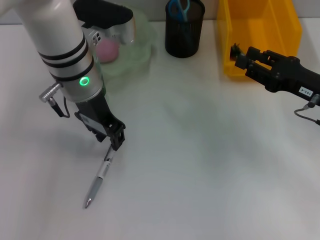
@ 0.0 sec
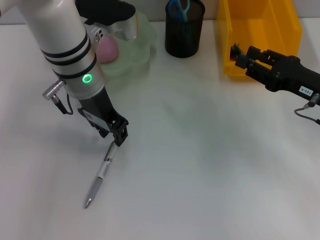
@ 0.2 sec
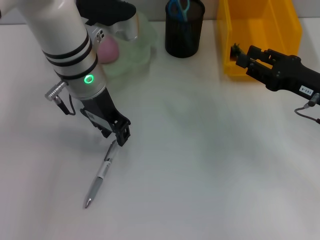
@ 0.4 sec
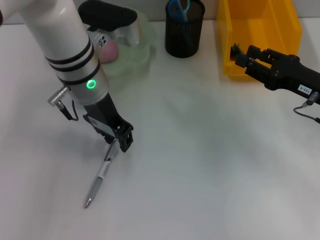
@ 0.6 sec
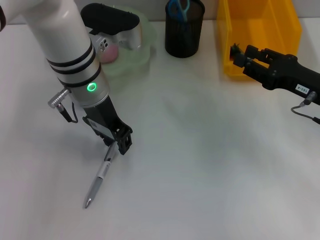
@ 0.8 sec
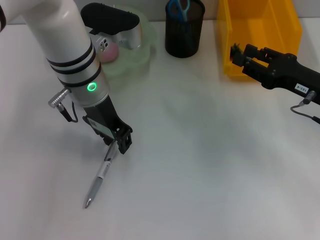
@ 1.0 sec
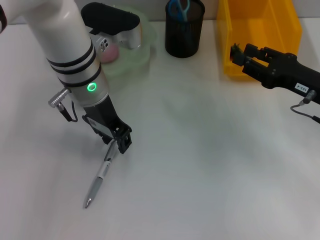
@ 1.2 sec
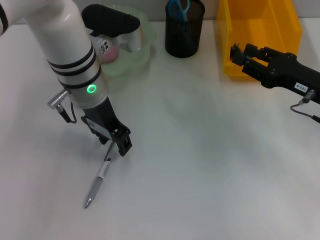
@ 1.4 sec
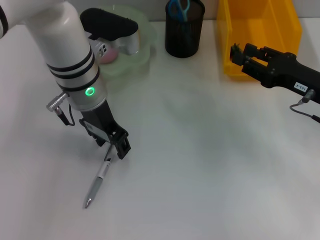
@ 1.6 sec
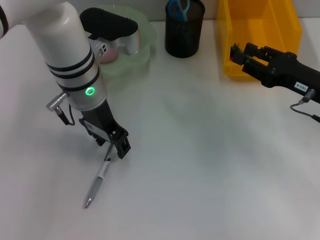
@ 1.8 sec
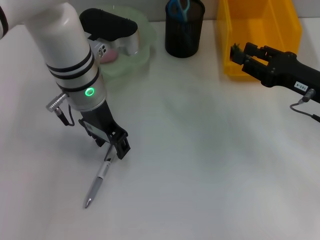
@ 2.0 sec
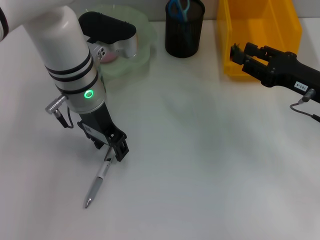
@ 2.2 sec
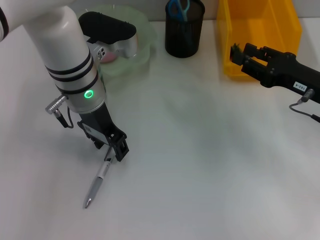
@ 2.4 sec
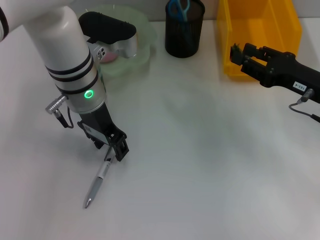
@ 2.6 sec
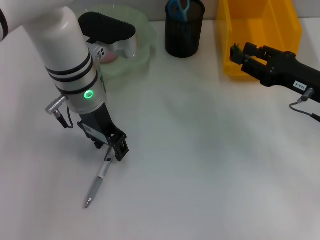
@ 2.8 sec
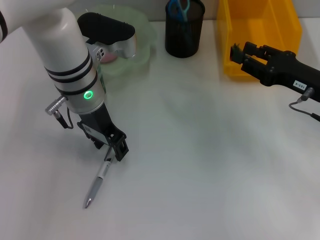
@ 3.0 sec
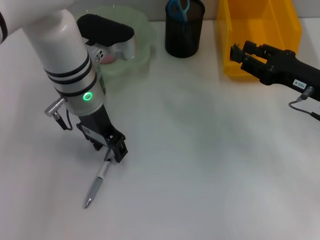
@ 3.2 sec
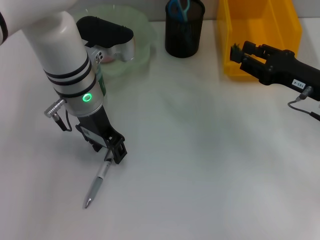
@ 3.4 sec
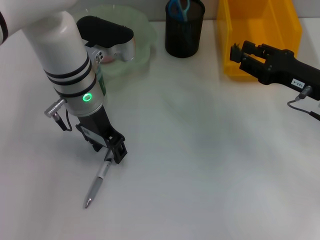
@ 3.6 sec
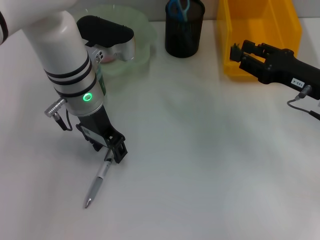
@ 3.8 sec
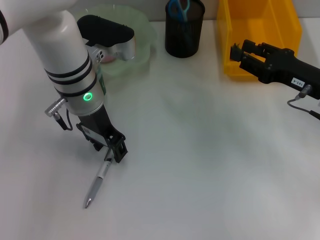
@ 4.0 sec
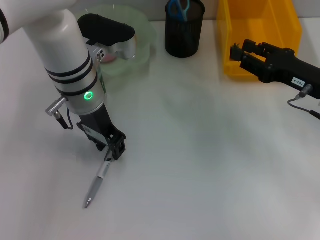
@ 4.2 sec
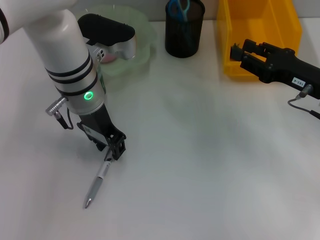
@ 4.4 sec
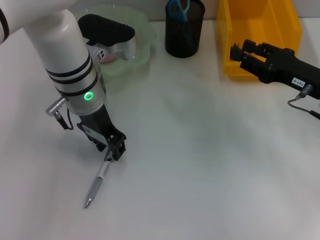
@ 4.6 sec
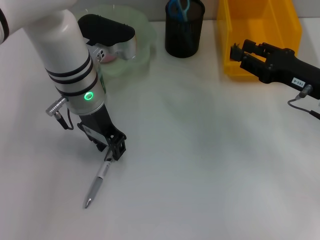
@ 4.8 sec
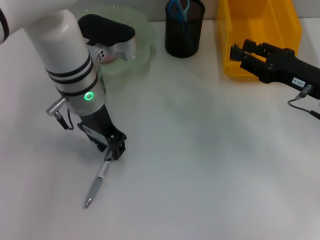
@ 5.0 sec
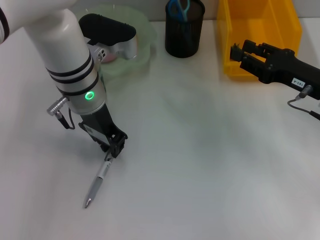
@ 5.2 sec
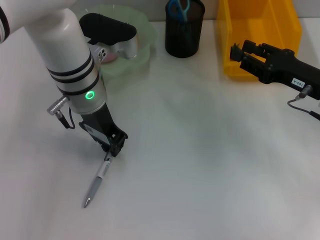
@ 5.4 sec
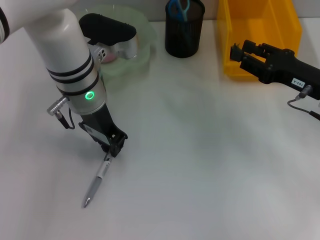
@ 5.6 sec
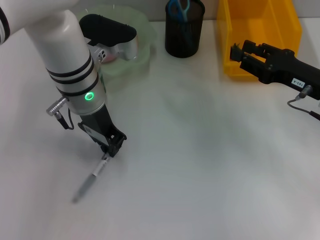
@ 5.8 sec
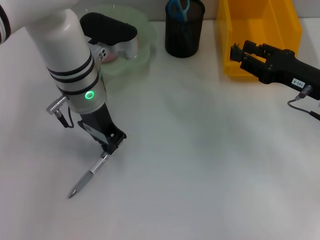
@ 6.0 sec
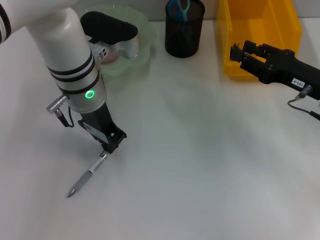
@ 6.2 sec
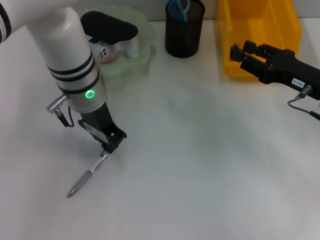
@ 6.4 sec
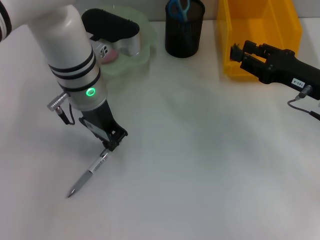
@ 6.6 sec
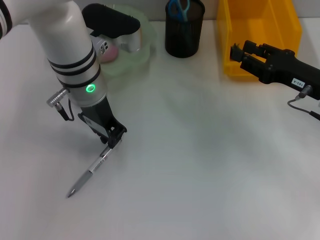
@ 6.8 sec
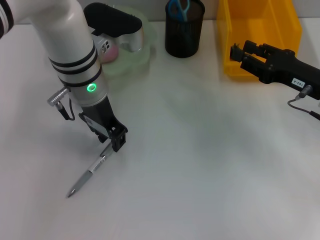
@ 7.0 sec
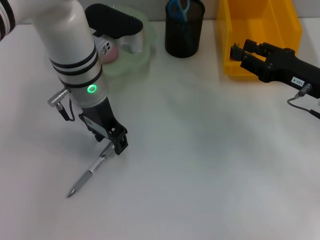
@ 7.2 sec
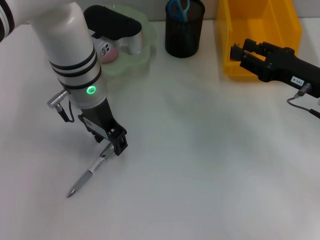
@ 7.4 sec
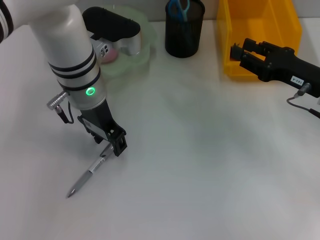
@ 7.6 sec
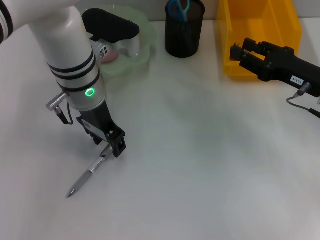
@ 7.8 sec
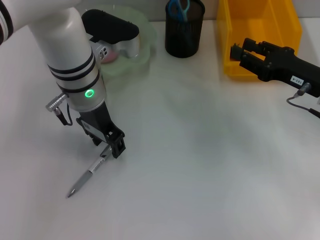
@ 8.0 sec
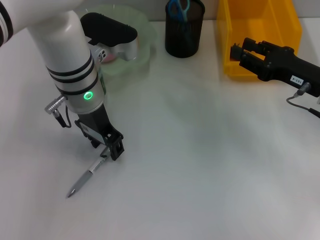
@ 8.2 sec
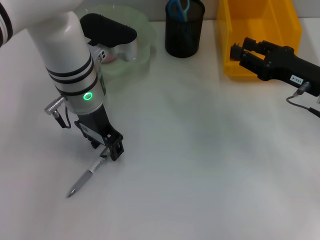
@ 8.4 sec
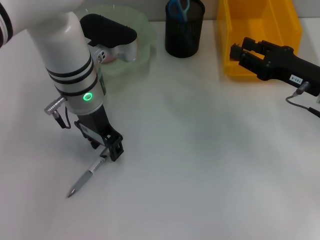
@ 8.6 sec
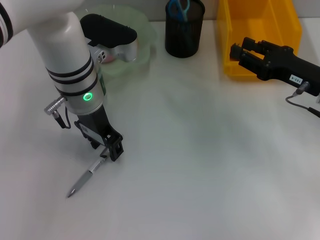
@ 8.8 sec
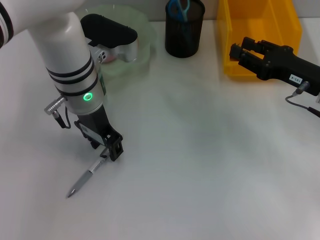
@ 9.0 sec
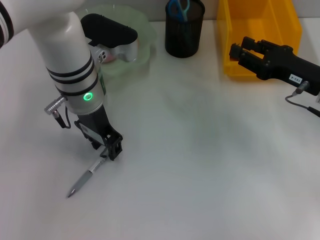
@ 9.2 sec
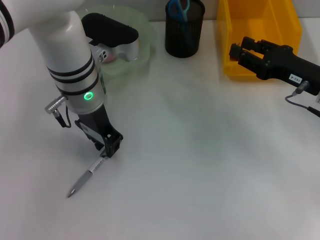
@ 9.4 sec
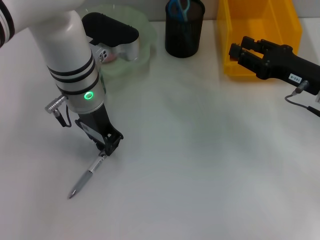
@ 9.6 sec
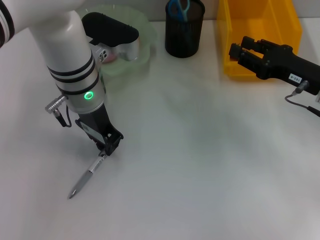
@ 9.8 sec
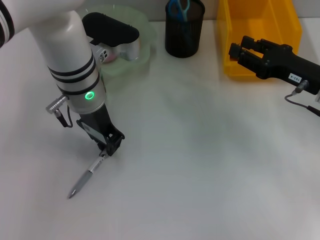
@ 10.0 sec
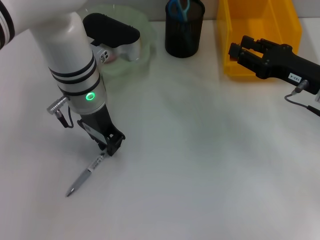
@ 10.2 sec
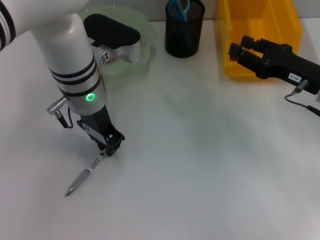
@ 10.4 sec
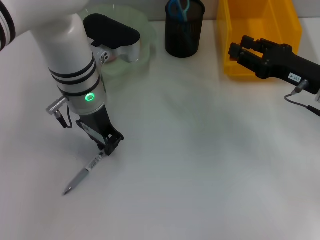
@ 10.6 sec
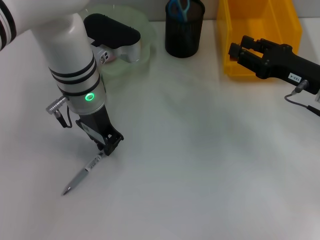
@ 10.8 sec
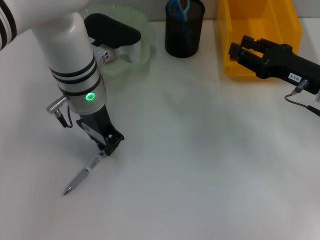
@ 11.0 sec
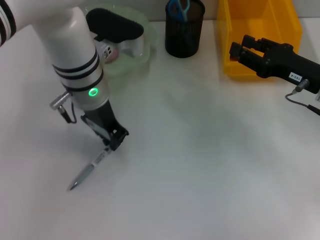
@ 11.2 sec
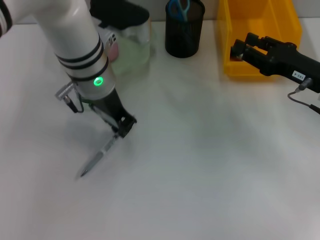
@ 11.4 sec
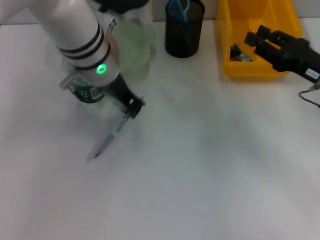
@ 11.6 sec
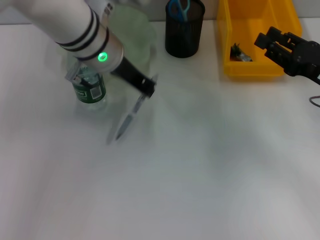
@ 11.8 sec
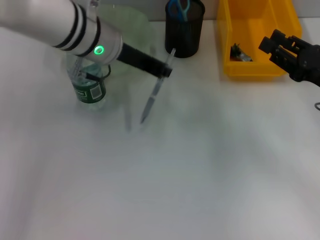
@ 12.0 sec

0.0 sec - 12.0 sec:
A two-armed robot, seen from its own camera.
Step, 0.0 sec - 10.6 sec: Grab the gray spring-action pen with the left hand.
0.0 sec - 1.6 sec: The grippers stay close to where they were, moving slightly.
1.6 sec - 4.4 sec: The two grippers keep their place.
4.4 sec - 6.0 sec: The left gripper closes its fingers.
6.0 sec - 7.6 sec: The left gripper opens up.
7.6 sec - 9.0 sec: Both grippers stay put.
9.0 sec - 10.4 sec: The left gripper closes.

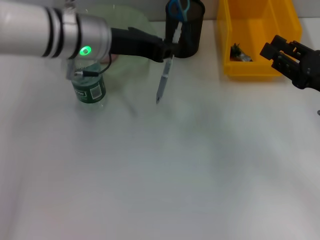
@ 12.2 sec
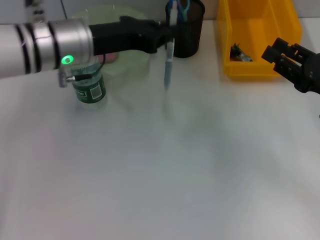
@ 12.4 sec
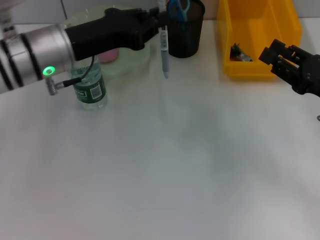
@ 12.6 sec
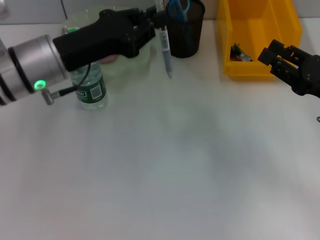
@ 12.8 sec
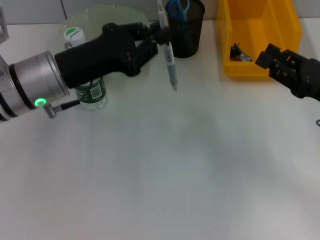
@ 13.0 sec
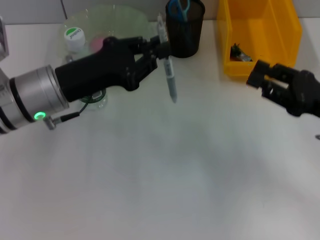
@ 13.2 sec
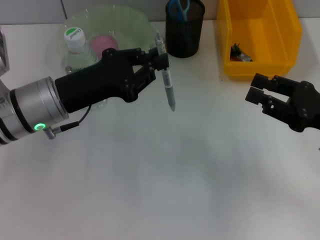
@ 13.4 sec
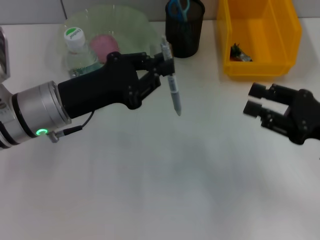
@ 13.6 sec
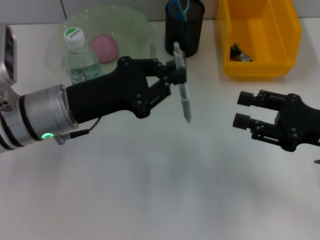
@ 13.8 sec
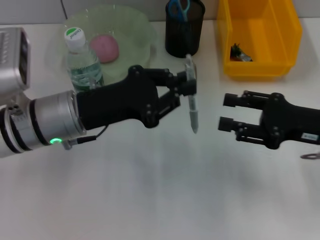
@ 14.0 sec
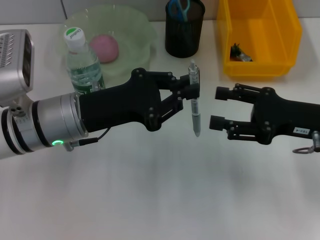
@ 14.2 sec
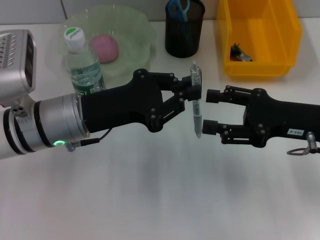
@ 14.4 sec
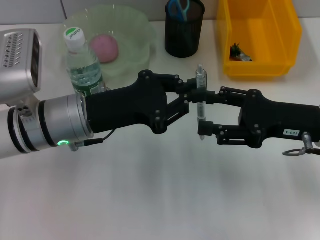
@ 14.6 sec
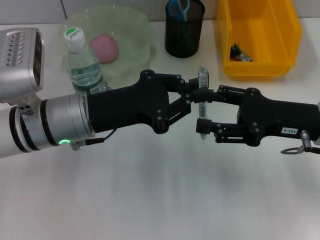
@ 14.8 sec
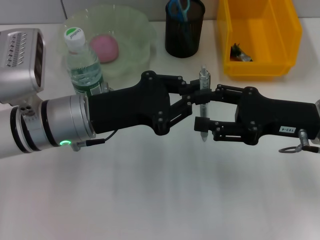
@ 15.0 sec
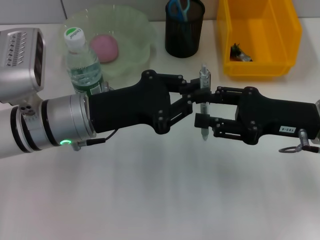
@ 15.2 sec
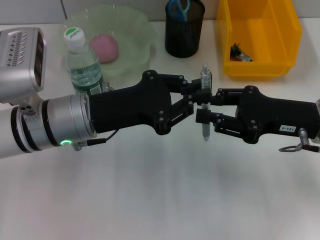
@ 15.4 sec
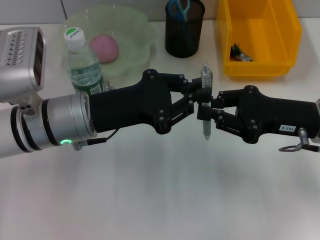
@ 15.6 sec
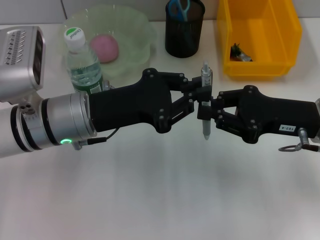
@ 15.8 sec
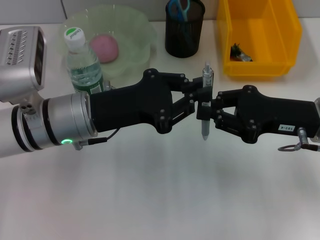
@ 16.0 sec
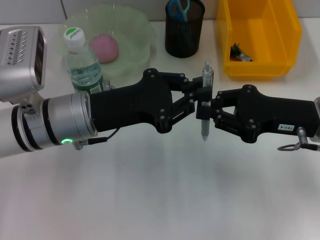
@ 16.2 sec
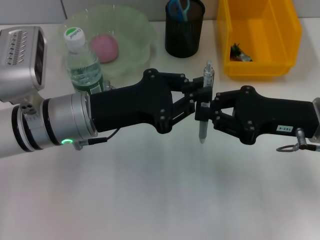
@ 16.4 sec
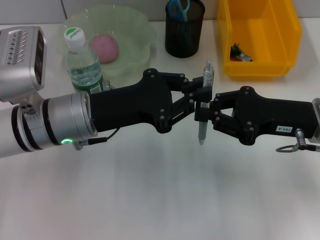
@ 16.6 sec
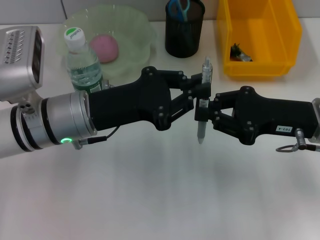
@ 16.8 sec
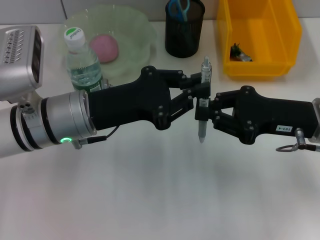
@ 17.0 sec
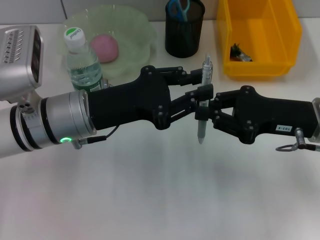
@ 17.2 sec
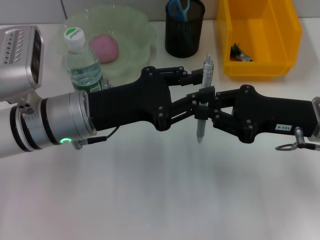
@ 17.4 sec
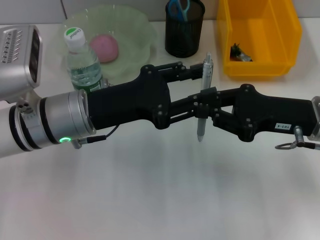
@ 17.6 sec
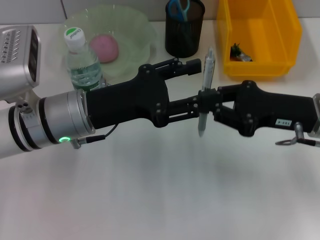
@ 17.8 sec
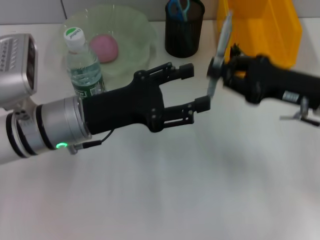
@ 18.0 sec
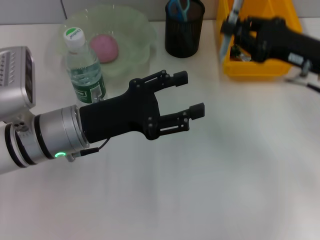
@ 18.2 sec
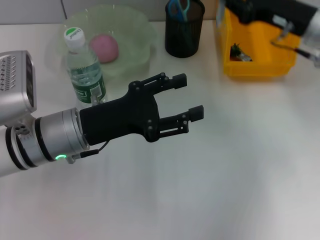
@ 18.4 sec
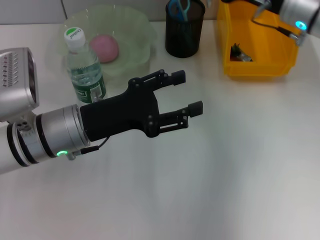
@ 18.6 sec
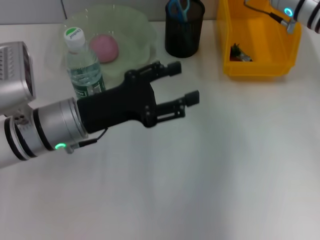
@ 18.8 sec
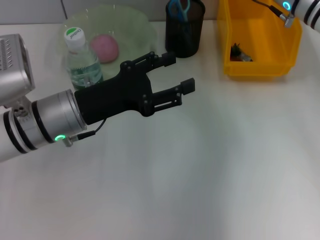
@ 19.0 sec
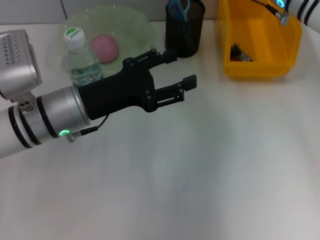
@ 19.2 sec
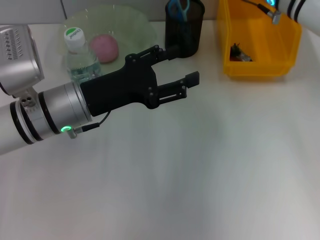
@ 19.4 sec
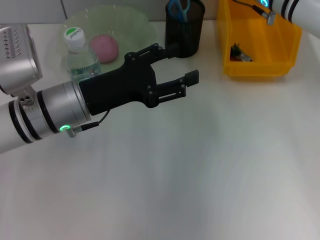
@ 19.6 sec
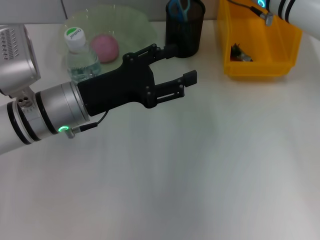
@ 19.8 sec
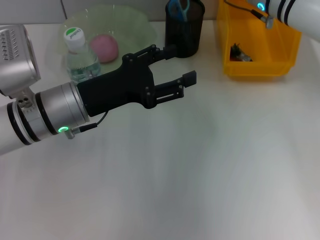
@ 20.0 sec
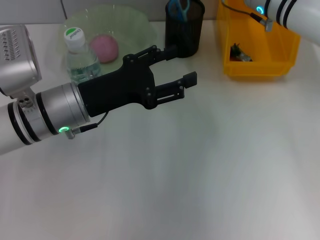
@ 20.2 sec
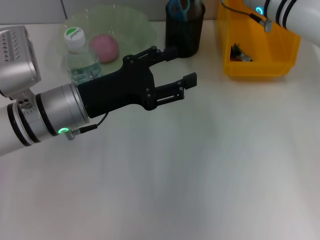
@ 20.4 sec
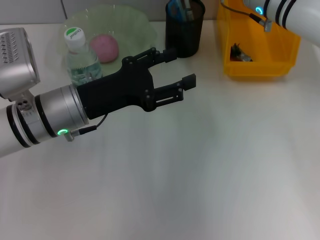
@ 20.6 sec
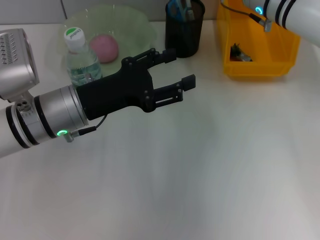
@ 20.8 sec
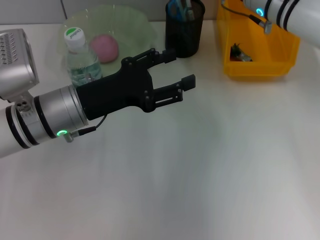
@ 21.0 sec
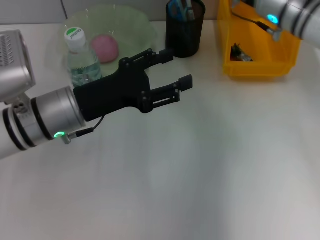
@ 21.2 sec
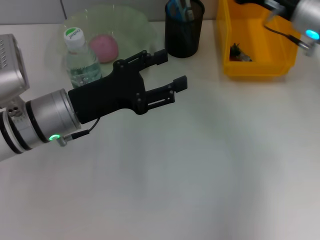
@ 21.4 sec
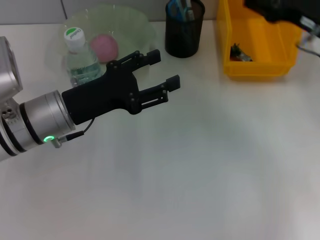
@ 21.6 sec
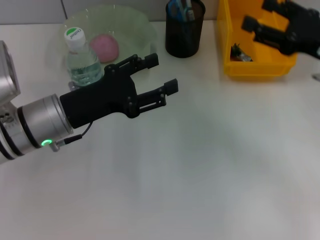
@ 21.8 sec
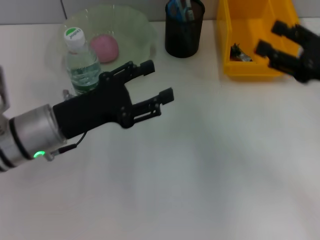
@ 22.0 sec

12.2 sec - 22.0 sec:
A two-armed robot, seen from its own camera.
Step, 12.2 sec - 17.6 sec: Pass the gray spring-action pen from the left hand to the right hand.
Step, 17.8 sec - 20.8 sec: Place the gray spring-action pen into the pen holder with the right hand.
12.2 sec - 13.6 sec: The left gripper travels backward, downward and to the left by roughly 10 cm.
13.6 sec - 15.0 sec: The right gripper heads to the left, covering approximately 5 cm.
15.0 sec - 16.4 sec: The right gripper closes up.
16.4 sec - 17.8 sec: The left gripper opens its fingers.
17.8 sec - 19.2 sec: The left gripper opens up. The right gripper moves forward, roughly 15 cm.
19.2 sec - 20.6 sec: There are only small adjustments of the grippers.
20.6 sec - 22.0 sec: The right gripper is displaced backward and to the right by approximately 20 cm, and opens up.
